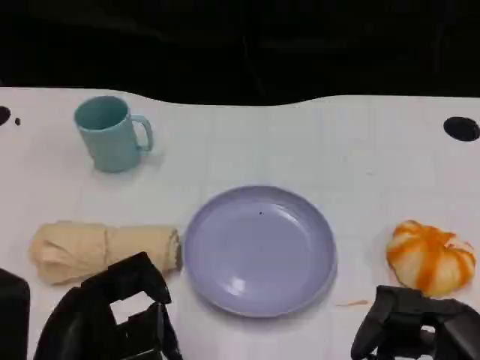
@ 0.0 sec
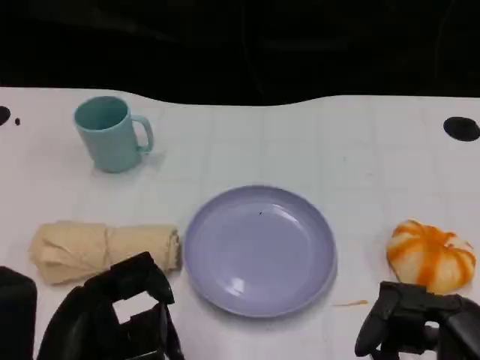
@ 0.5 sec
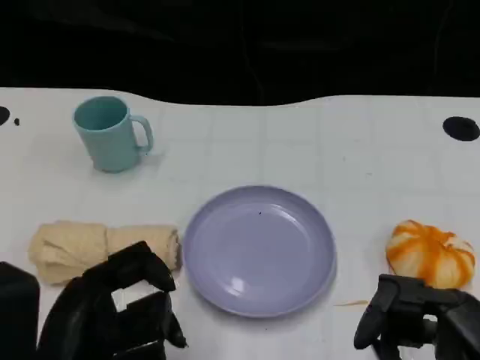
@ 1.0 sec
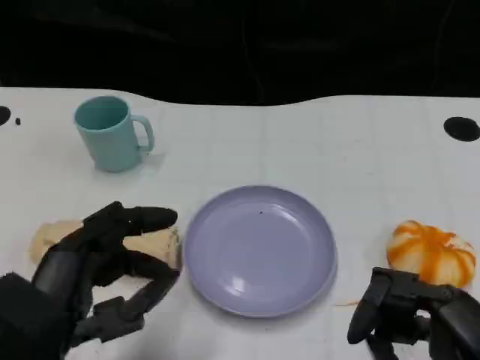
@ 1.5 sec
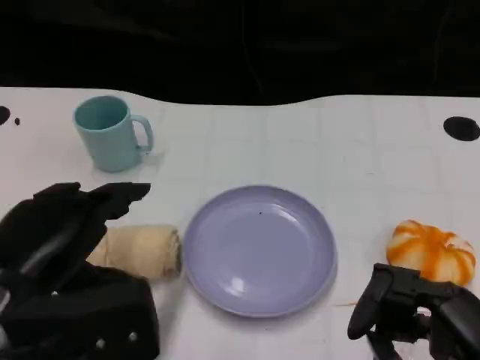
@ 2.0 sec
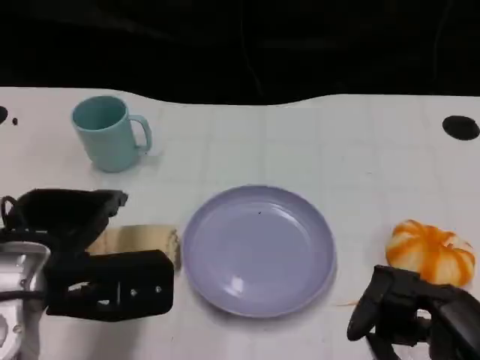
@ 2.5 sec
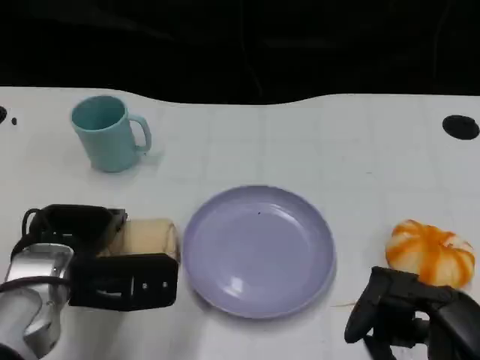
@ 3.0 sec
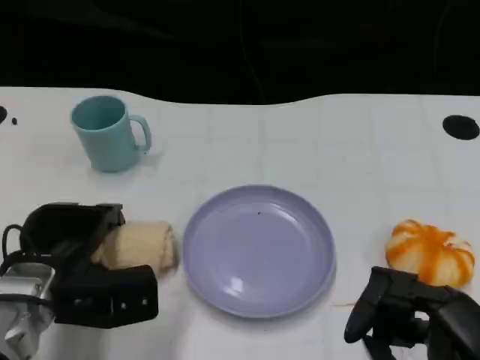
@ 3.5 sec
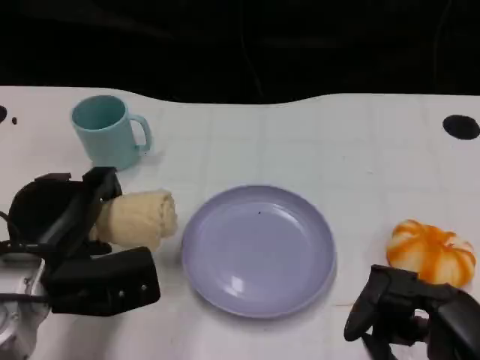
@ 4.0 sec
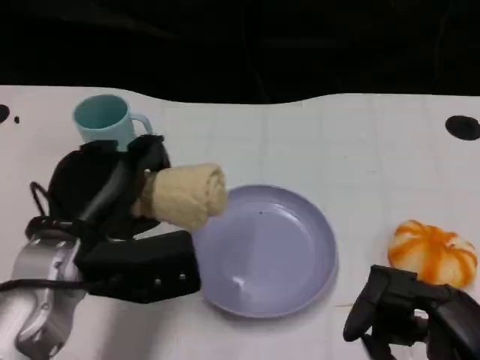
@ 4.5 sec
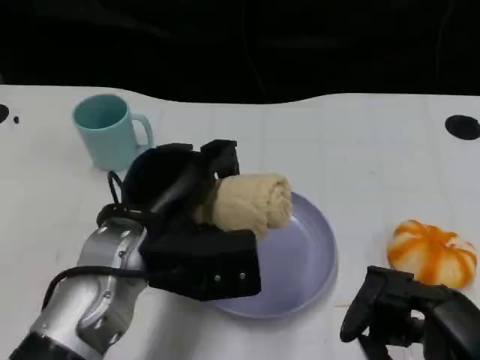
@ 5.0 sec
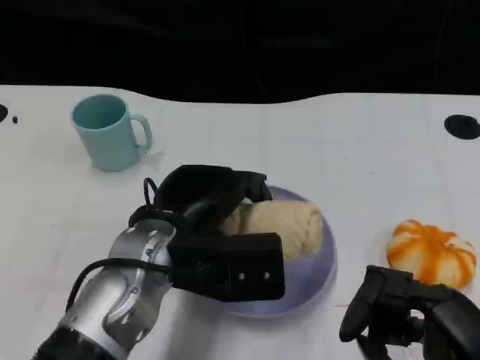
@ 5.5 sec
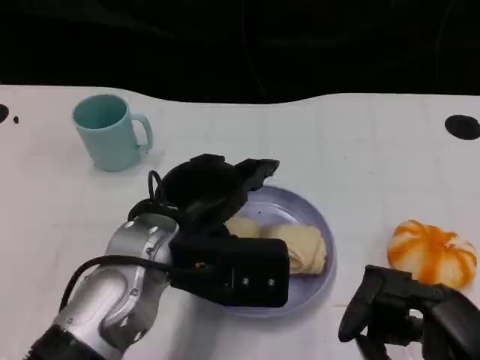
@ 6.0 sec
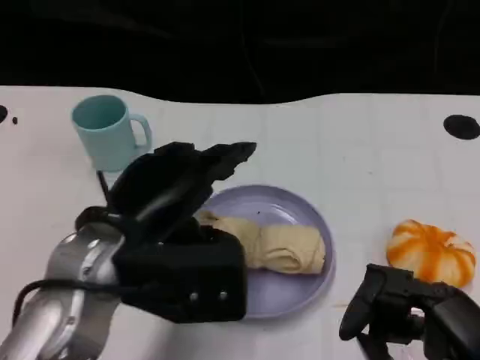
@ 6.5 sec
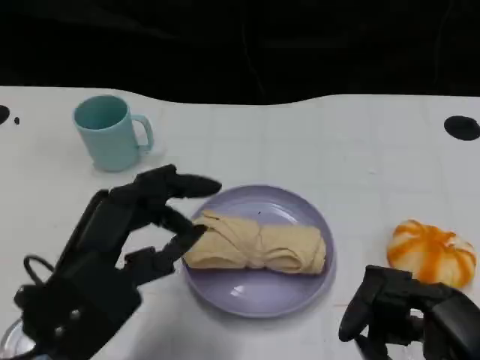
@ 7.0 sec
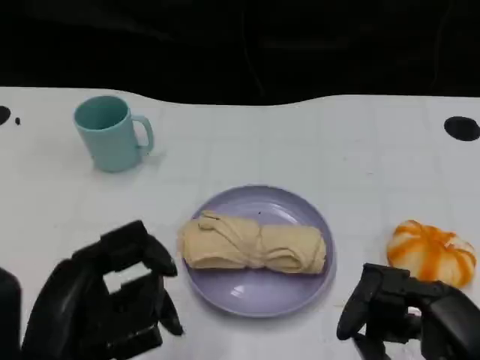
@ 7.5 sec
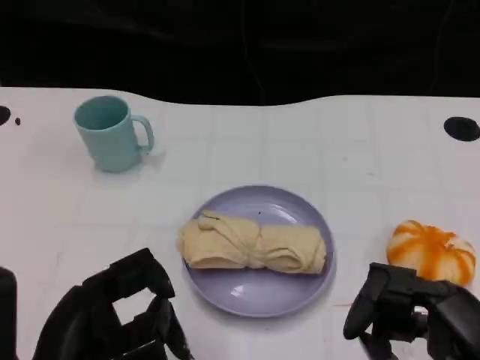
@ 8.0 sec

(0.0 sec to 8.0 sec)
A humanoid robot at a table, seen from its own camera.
Task of the whole recording: Grasp the towel on the left side of the plate with the left hand and place it into the plate.
0.0 sec - 2.0 sec: The left hand heads forward, covering approximately 5 cm.
2.0 sec - 4.0 sec: The left hand moves downward and forward, some 10 cm.
4.0 sec - 6.0 sec: The left hand travels to the right and upward by roughly 15 cm.
6.0 sec - 8.0 sec: The left hand goes some 15 cm backward and to the left.

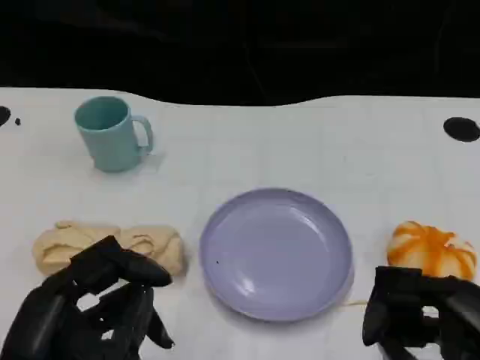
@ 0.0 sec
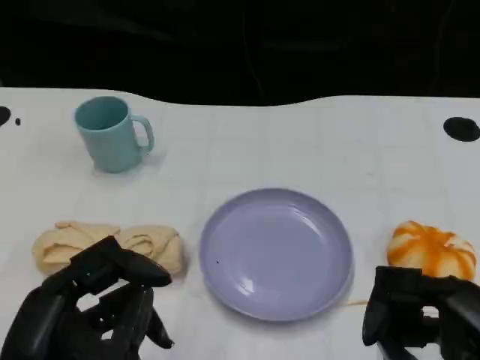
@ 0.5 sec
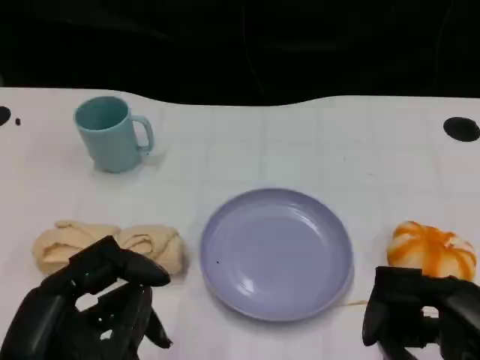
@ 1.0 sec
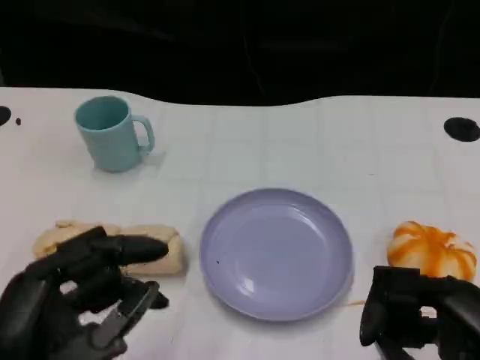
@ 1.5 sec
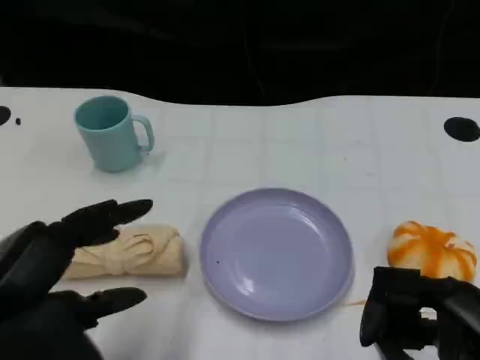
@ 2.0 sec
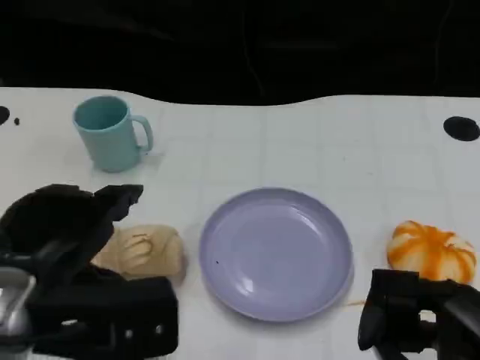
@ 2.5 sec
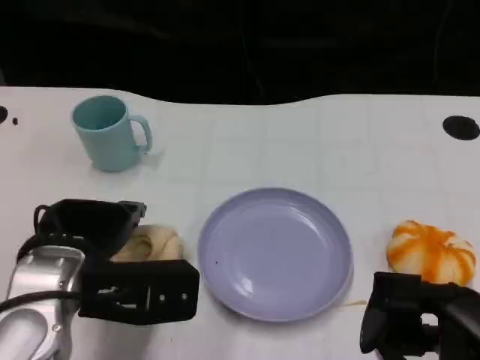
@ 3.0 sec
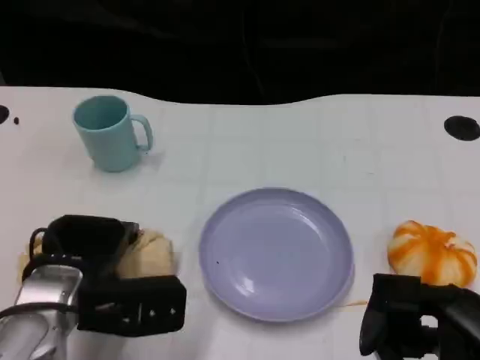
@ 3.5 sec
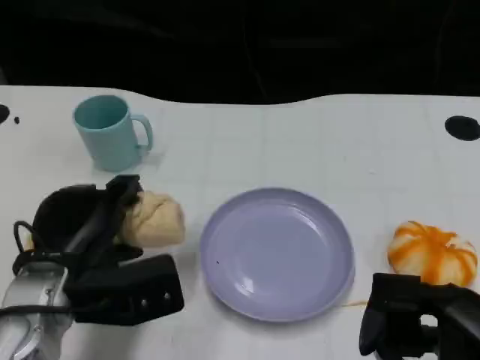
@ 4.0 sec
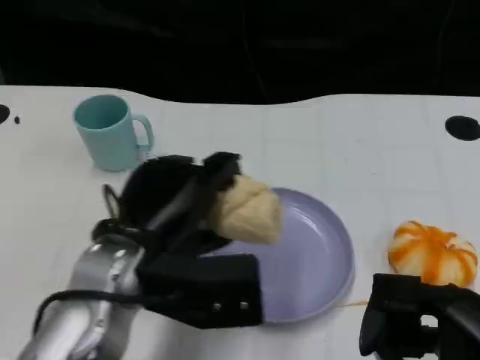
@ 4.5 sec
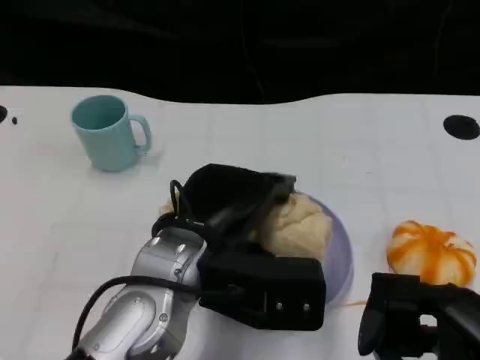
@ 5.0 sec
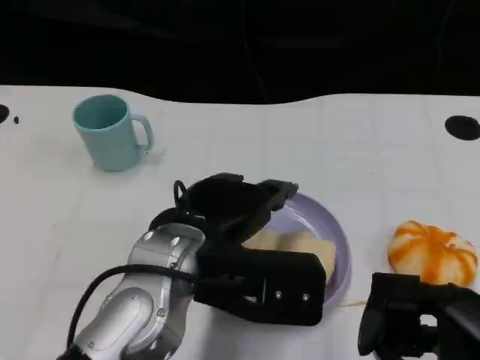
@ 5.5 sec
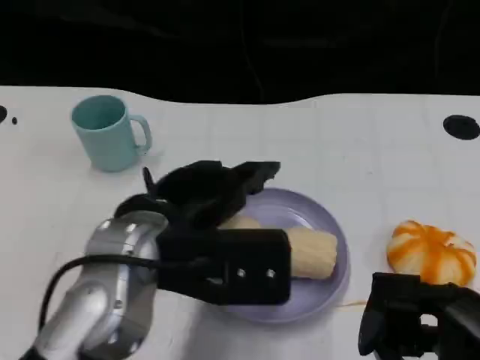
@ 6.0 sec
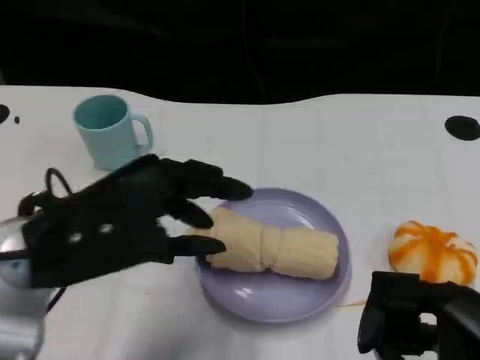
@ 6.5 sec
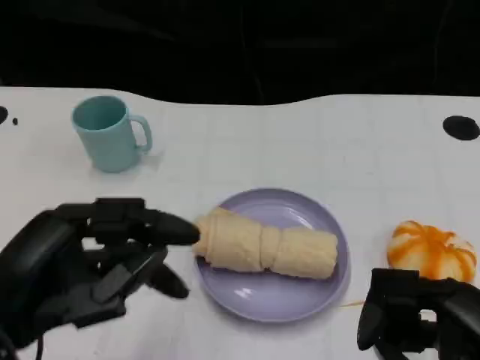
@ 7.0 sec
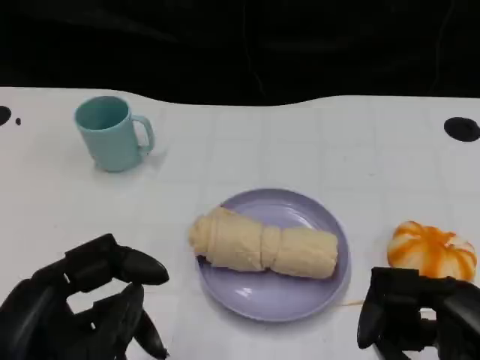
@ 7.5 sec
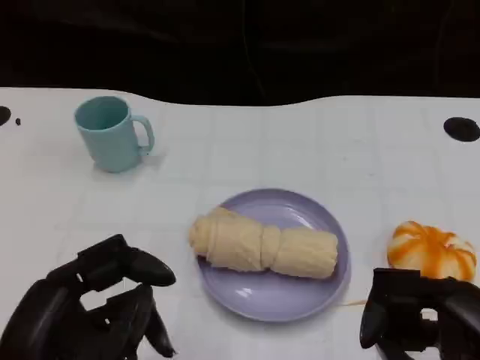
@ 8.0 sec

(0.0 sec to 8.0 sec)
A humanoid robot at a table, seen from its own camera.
Task of the whole recording: Grasp the towel on the left side of the plate with the left hand and place it into the plate.
0.0 sec - 2.0 sec: The left hand changes place by about 5 cm.
2.0 sec - 4.0 sec: The left hand is displaced forward and downward by some 15 cm.
4.0 sec - 6.0 sec: The left hand moves upward and to the right, about 10 cm.
6.0 sec - 8.0 sec: The left hand moves backward and to the left, approximately 15 cm.

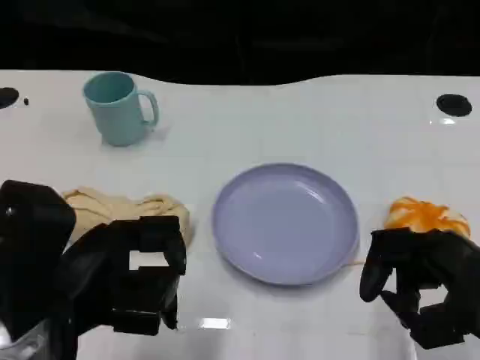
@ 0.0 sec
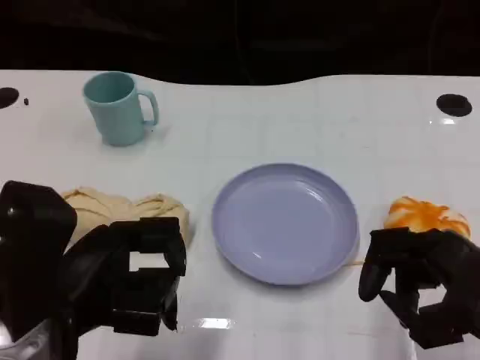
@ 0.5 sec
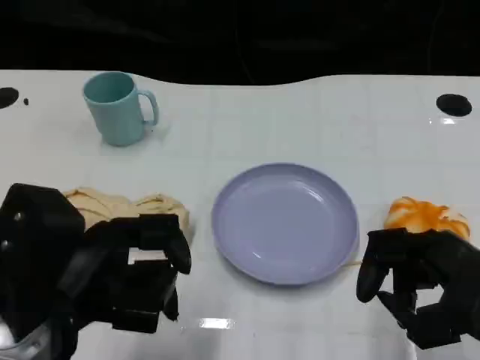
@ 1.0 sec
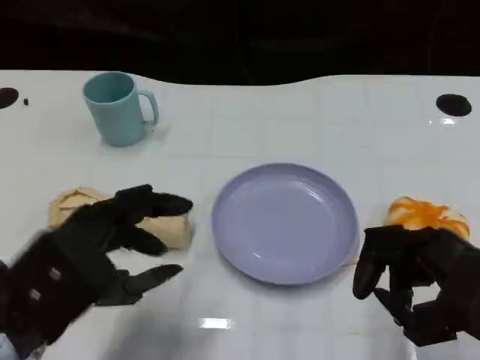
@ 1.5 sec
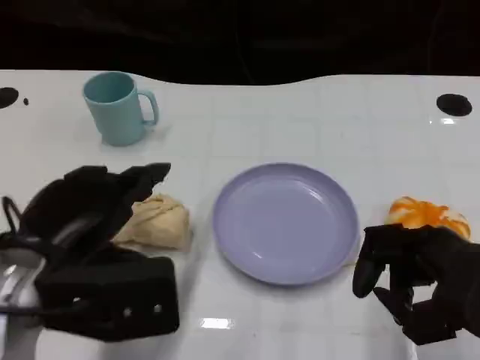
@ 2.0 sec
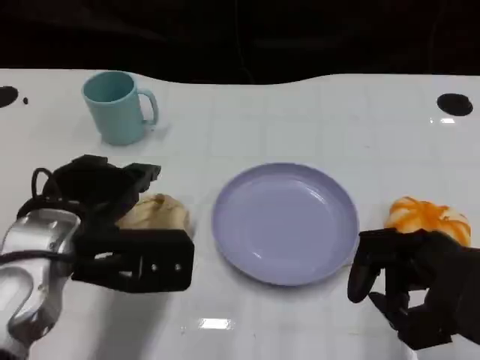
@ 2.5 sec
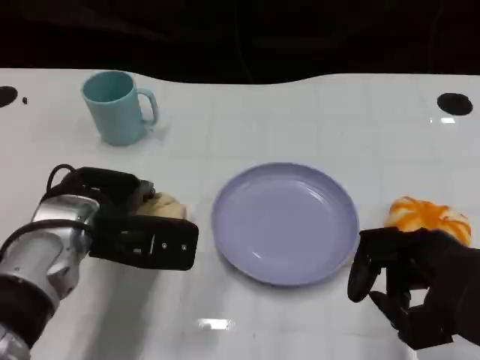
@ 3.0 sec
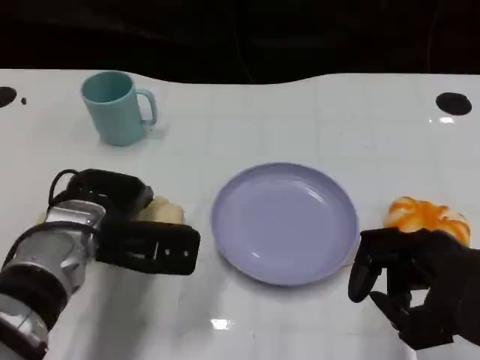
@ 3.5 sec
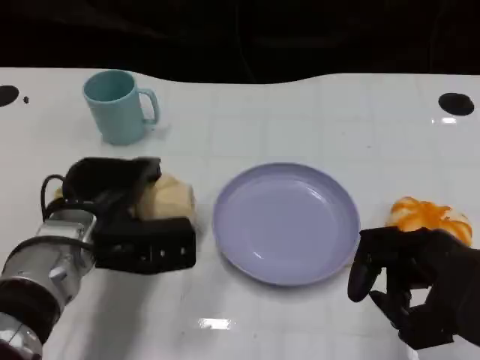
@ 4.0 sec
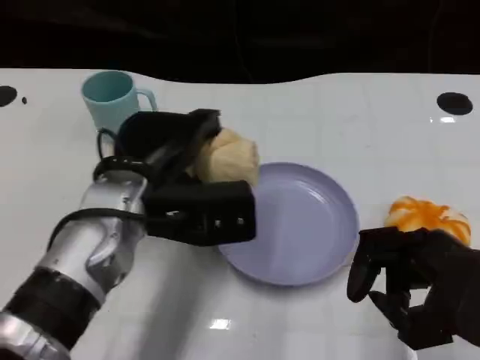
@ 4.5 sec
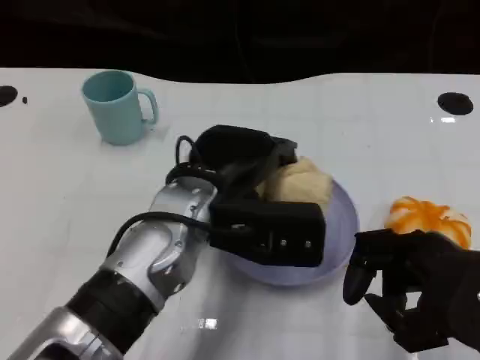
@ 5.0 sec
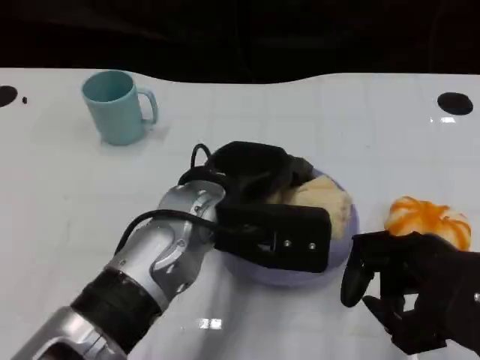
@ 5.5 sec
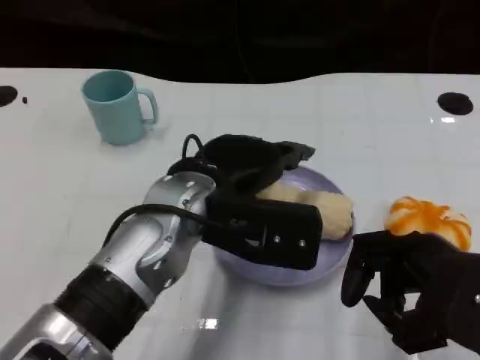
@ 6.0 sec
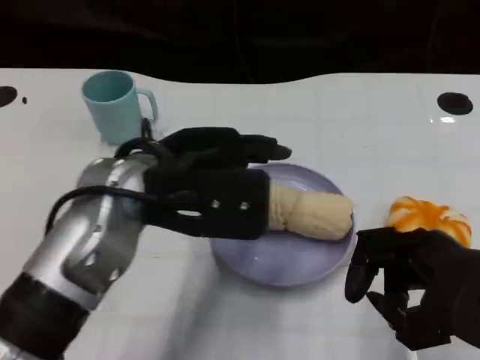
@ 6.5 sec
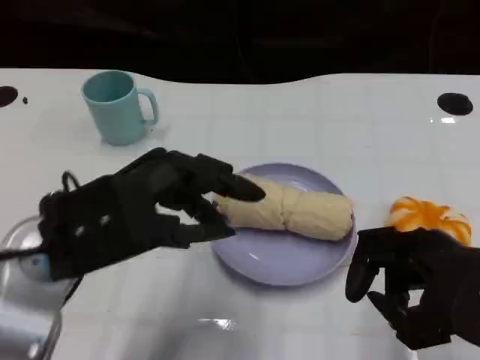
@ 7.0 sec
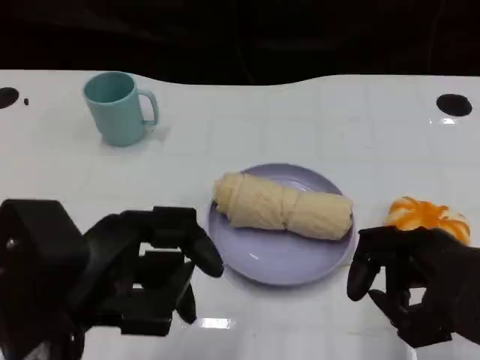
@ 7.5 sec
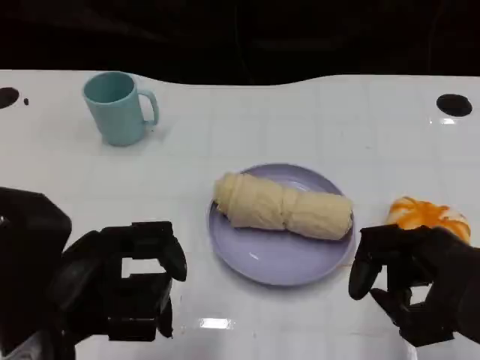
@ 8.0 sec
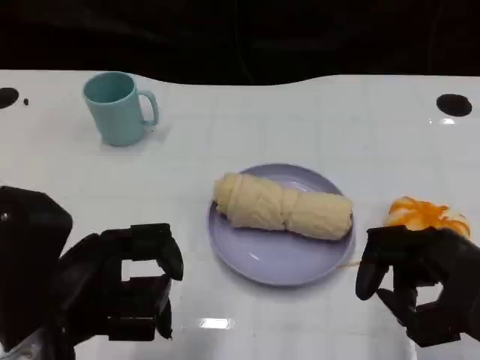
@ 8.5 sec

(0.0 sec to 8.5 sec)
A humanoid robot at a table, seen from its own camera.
Task of the whole recording: Grasp the towel on the left side of the plate with the left hand and place it into the plate.
2.0 sec - 4.0 sec: The left hand shifts some 10 cm forward and downward.
4.0 sec - 6.5 sec: The left hand goes approximately 10 cm upward and to the right.
6.5 sec - 8.5 sec: The left hand goes roughly 15 cm backward and to the left.

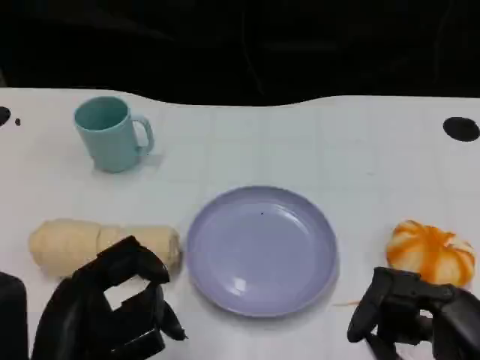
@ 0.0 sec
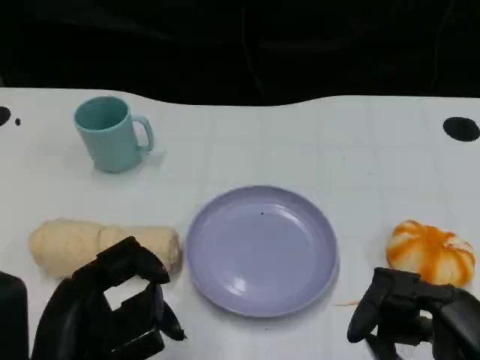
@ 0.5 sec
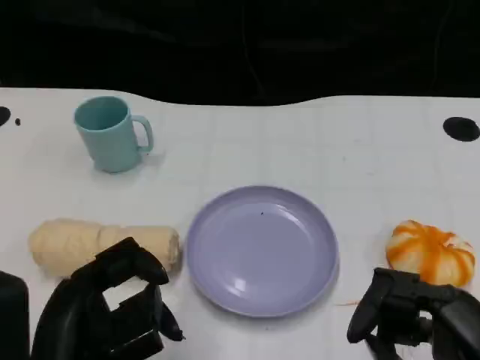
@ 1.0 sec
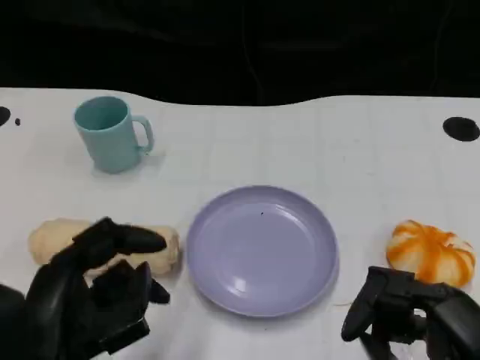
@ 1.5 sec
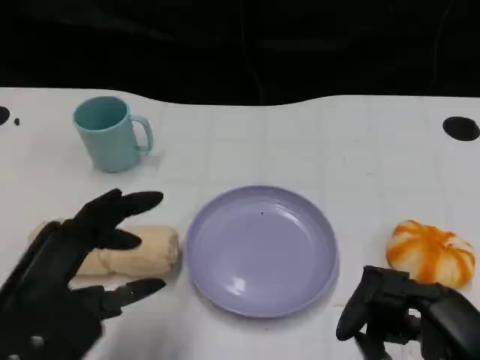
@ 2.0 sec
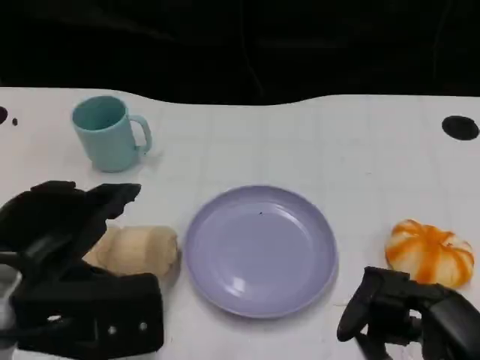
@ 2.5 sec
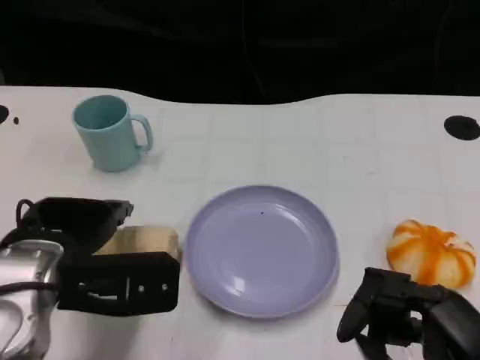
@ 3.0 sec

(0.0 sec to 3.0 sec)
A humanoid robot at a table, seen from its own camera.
Task of the whole recording: Grasp the towel on the left side of the plate with the left hand and place it into the plate.
0.0 sec - 1.5 sec: The hands stay close to where they were, moving slightly.
1.5 sec - 3.0 sec: The left hand heads forward, covering about 10 cm.
